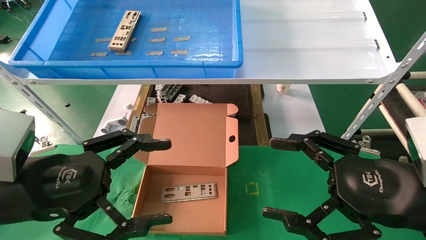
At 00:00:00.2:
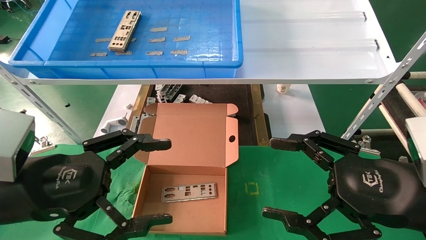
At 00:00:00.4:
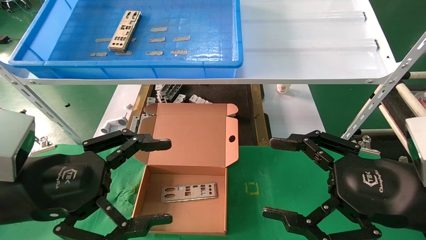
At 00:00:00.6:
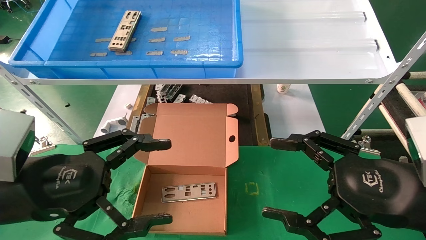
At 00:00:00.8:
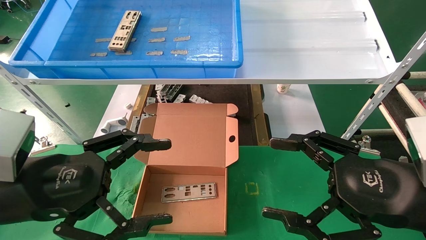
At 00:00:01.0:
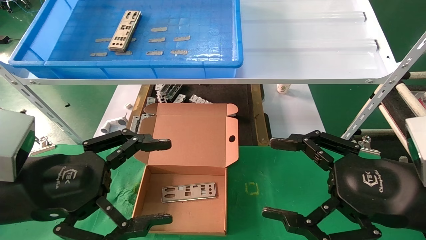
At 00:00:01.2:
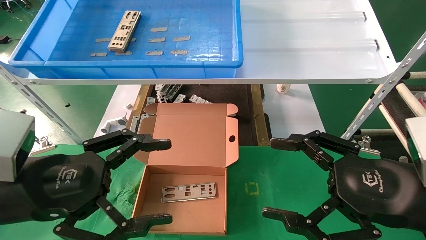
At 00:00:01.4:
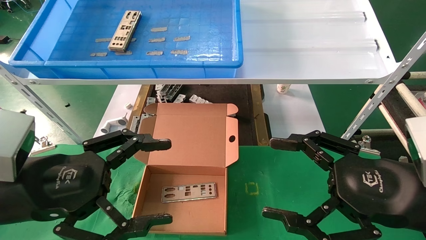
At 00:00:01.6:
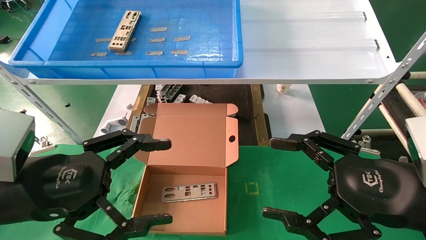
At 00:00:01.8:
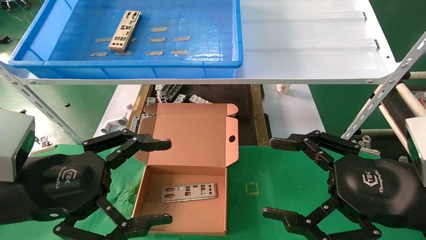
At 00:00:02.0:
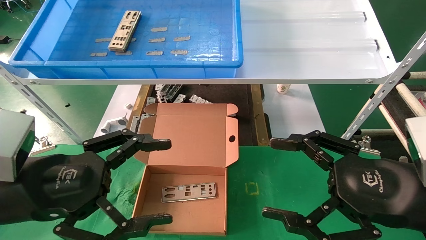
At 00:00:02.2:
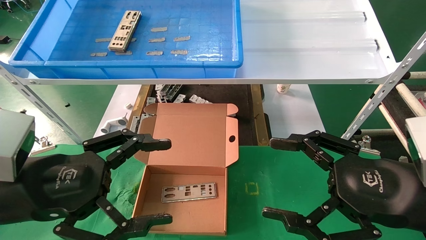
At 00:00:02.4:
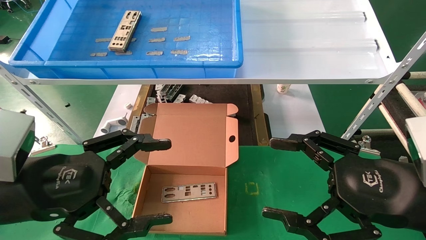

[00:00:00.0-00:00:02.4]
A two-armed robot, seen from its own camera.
Task of the whole recording: pick up the parts on the tray and put them in the cardboard box.
00:00:00.0 to 00:00:02.4: Neither gripper changes place.
